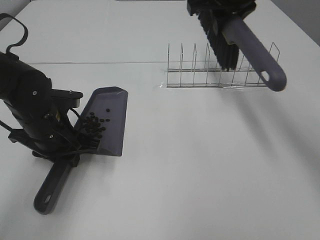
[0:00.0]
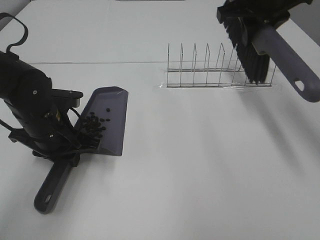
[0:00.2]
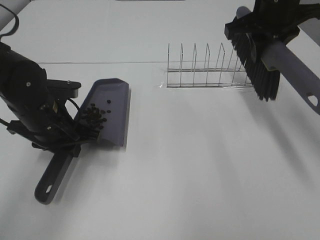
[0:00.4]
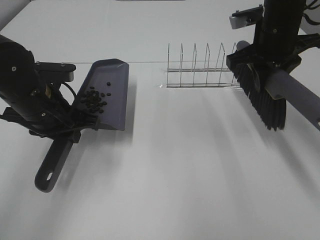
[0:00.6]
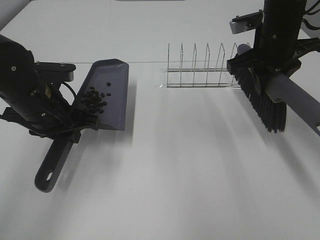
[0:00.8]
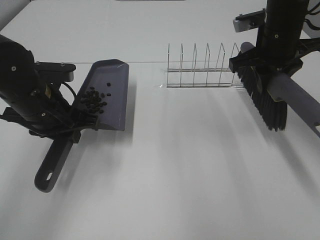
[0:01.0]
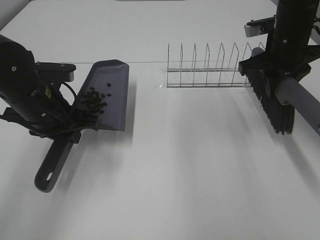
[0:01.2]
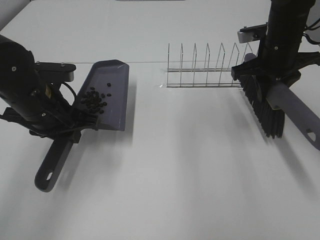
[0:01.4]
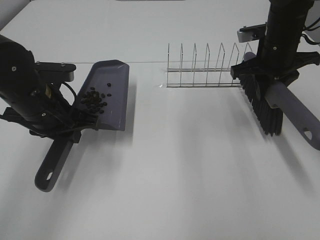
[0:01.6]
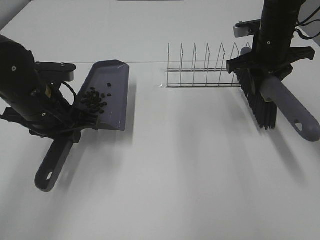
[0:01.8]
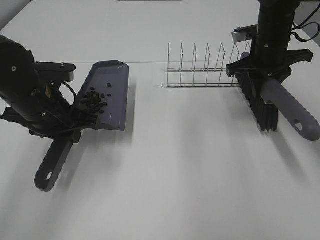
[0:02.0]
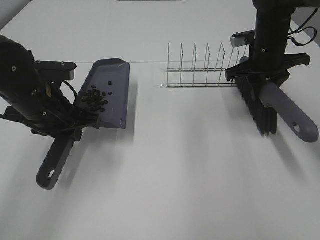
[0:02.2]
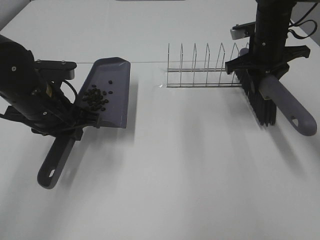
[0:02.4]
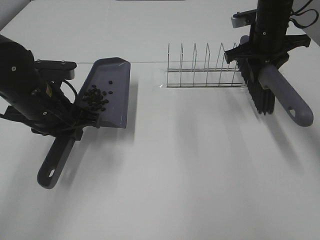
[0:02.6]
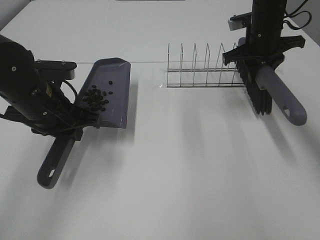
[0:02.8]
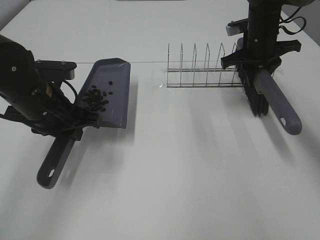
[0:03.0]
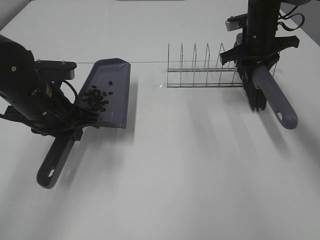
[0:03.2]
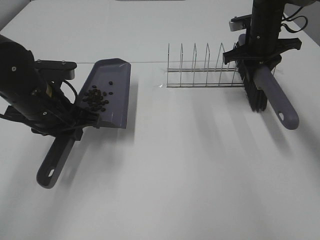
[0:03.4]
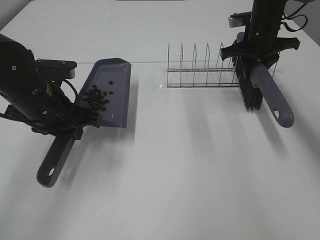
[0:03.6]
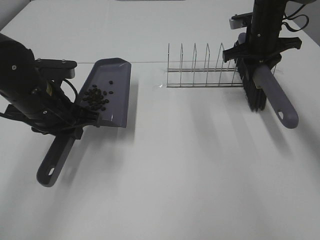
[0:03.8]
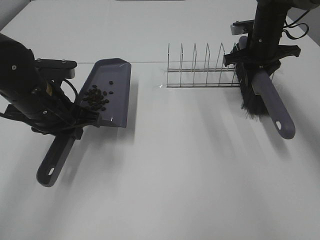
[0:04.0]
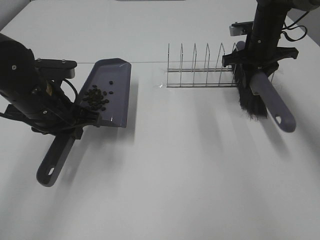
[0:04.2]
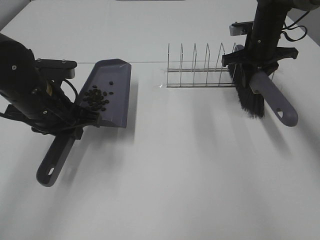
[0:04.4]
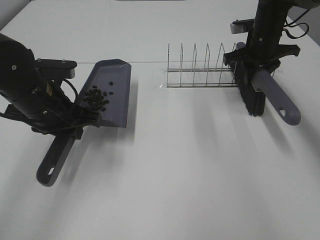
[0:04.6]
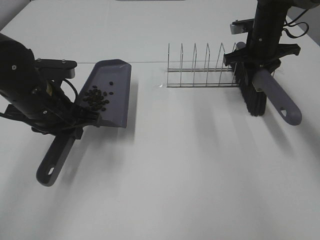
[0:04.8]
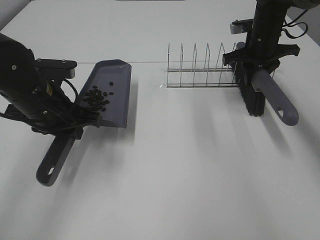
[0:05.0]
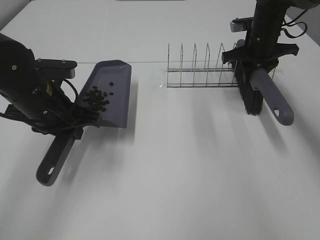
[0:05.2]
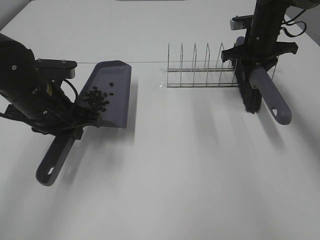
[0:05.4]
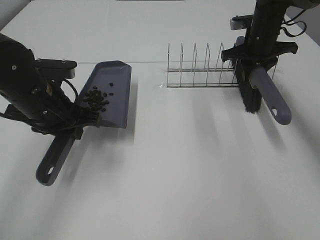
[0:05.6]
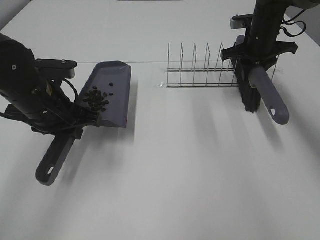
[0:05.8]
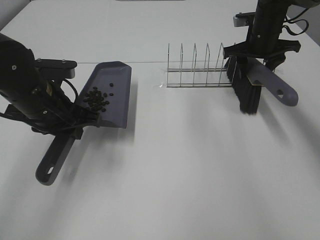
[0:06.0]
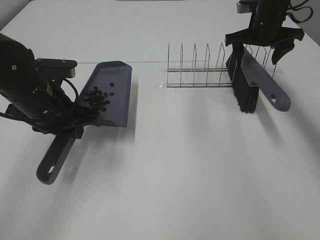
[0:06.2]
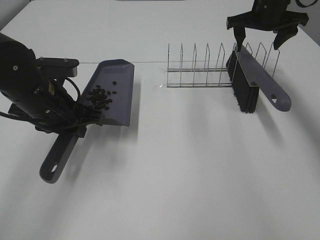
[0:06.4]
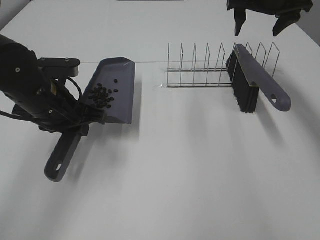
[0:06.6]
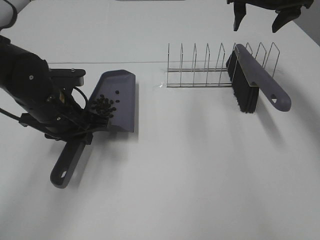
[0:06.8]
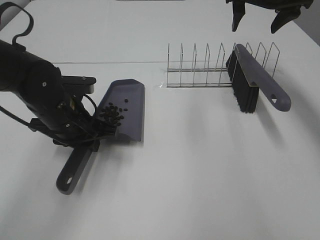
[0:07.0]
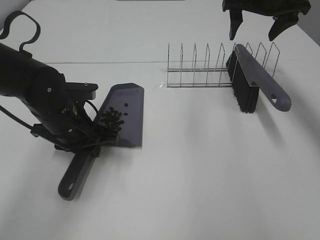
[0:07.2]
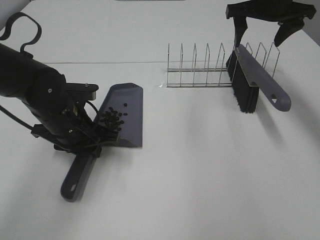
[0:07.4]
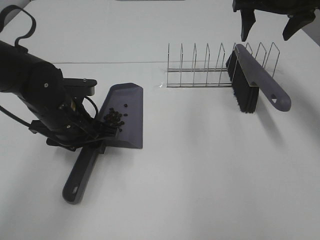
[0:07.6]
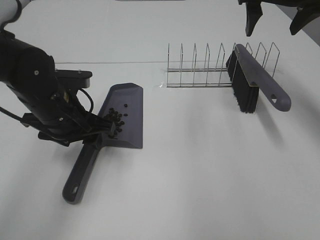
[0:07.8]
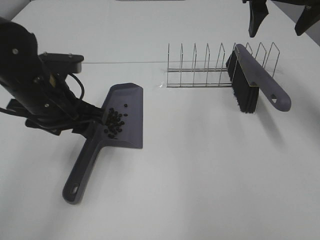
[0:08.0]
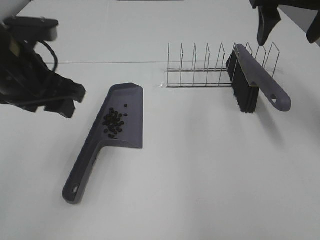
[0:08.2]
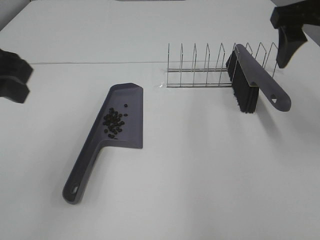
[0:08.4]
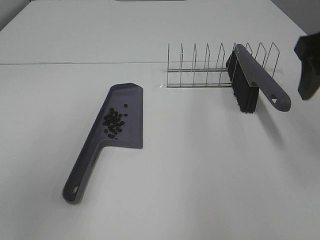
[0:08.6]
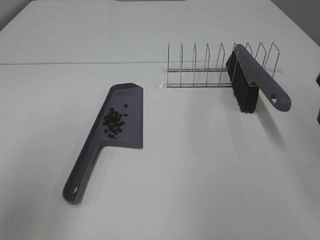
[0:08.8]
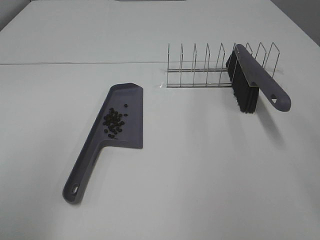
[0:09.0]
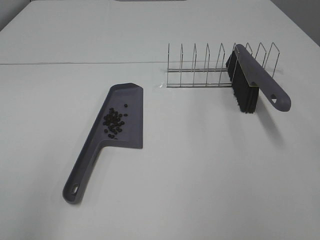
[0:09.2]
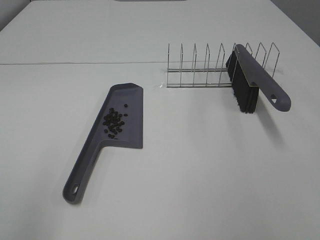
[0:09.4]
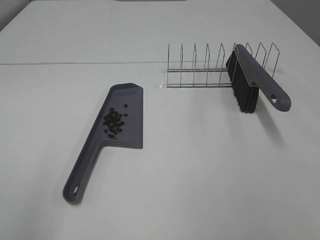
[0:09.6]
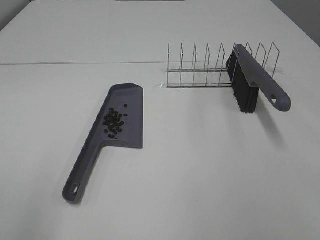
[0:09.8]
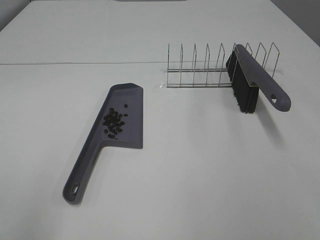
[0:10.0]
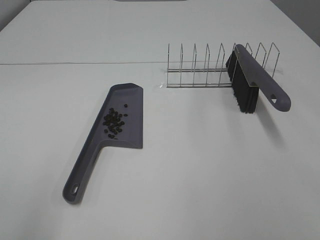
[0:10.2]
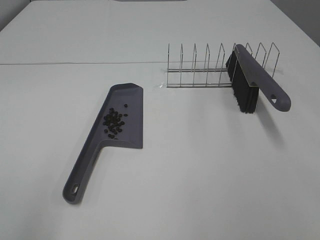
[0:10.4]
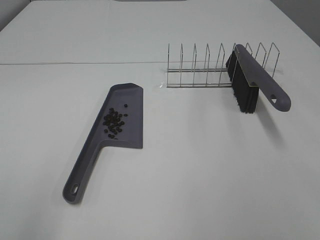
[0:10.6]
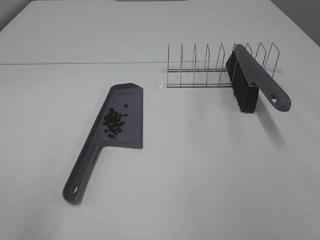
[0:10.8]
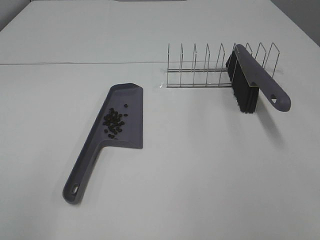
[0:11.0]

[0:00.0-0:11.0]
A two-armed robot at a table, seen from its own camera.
Task of the whole recording: Sweep Coffee Bean.
Step, 0.0 to 6.2 s: Right hand:place the broom on the rack.
Step, 6.4 to 7.8 s: Left hand:place the dustpan on the table.
0.0 to 1.6 s: The right gripper heads downward and to the right, covering about 15 cm; the left gripper travels upward by some 5 cm.
1.6 to 3.2 s: The right gripper goes some 10 cm forward.
3.2 to 4.8 s: The grippers move only a little.
4.8 to 6.2 s: The right gripper opens its fingers.
6.2 to 7.8 s: The left gripper opens. Meanwhile the right gripper moves upward and backward, about 15 cm.
7.8 to 9.4 s: The left gripper moves backward, upward and to the left, roughly 30 cm, while the right gripper heads backward, covering roughly 35 cm.

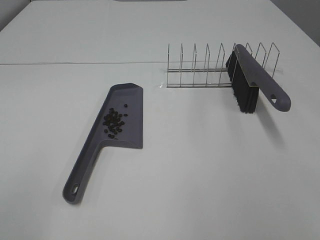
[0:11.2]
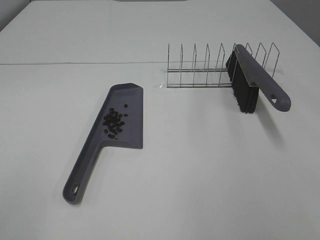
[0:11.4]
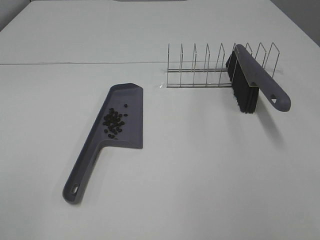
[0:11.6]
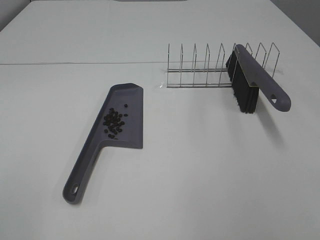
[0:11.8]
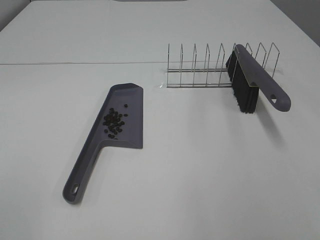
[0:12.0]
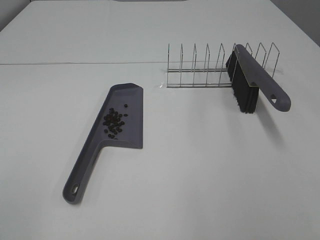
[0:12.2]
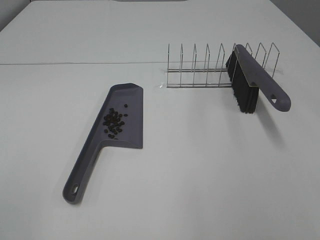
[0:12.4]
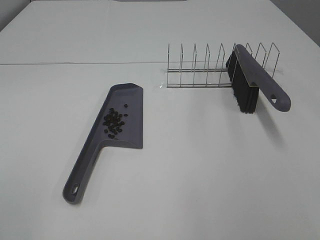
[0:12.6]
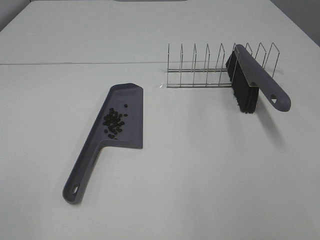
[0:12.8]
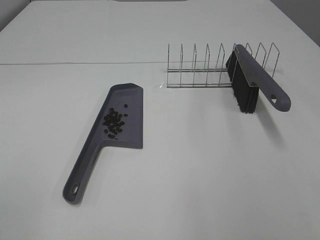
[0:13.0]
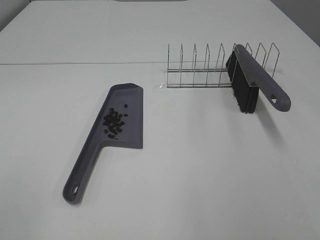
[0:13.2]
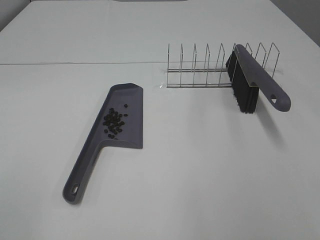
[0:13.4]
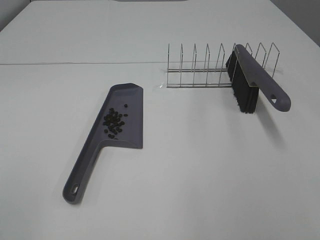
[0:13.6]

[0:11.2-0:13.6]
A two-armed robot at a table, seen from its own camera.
Task of the whole recording: Sweep Coffee Bean.
12.4 to 13.6 s: Both grippers stay put.

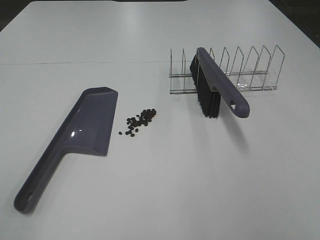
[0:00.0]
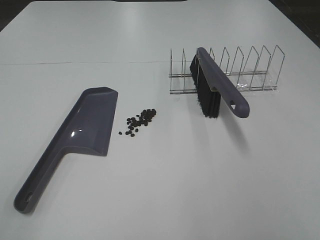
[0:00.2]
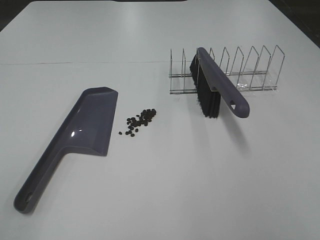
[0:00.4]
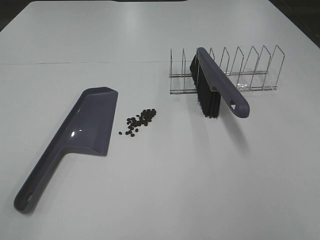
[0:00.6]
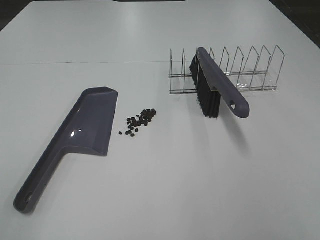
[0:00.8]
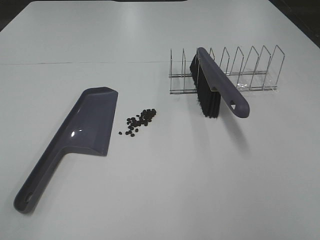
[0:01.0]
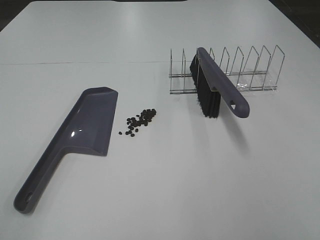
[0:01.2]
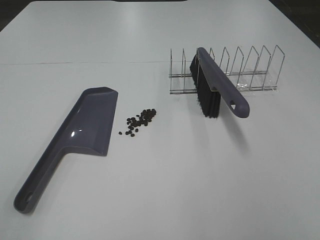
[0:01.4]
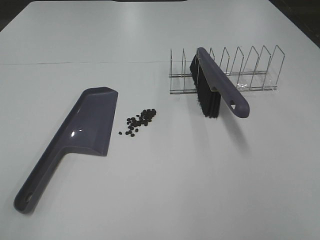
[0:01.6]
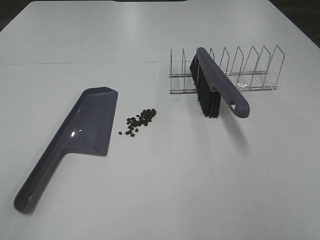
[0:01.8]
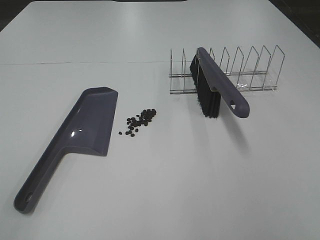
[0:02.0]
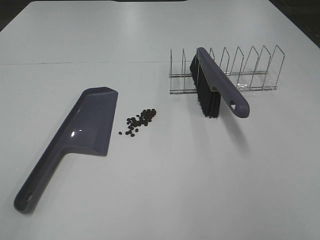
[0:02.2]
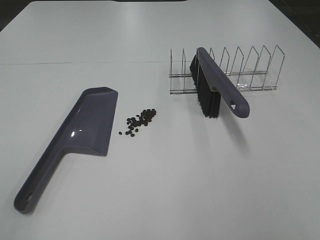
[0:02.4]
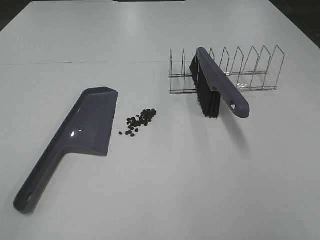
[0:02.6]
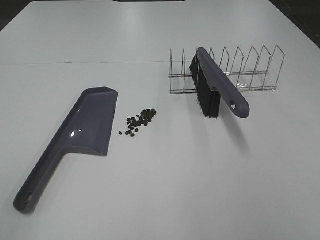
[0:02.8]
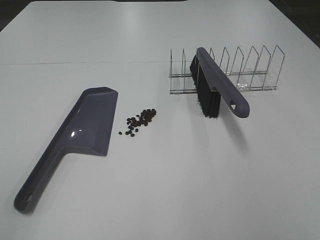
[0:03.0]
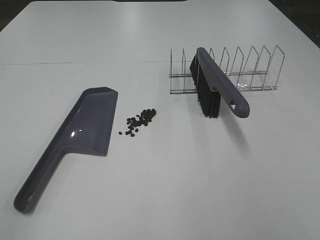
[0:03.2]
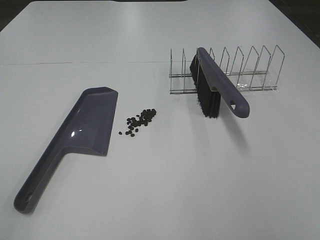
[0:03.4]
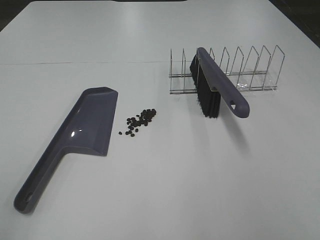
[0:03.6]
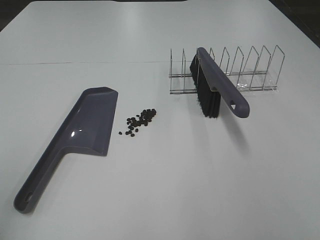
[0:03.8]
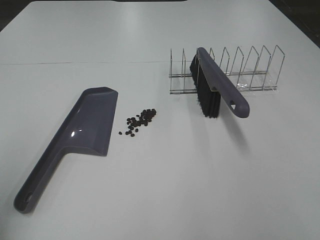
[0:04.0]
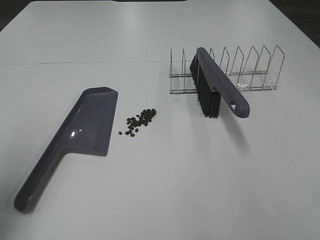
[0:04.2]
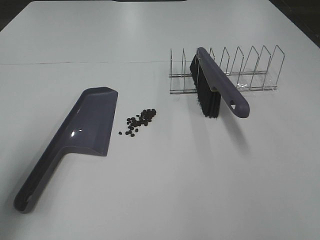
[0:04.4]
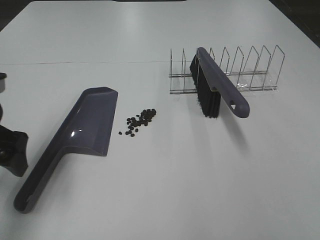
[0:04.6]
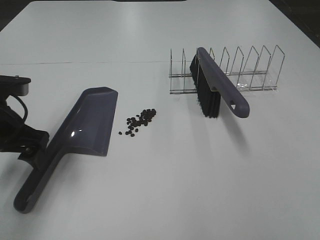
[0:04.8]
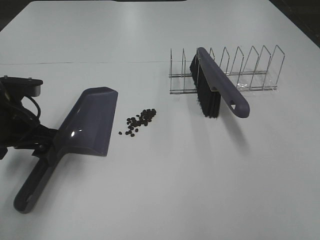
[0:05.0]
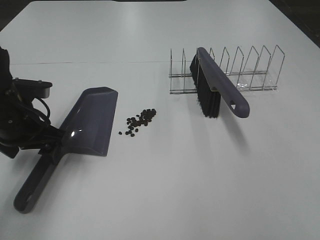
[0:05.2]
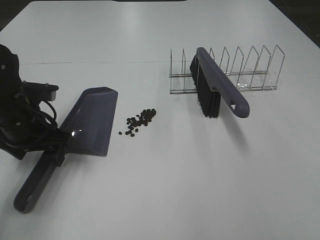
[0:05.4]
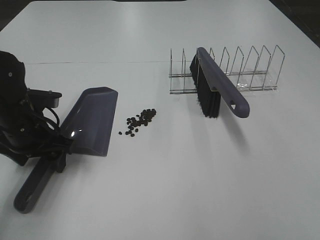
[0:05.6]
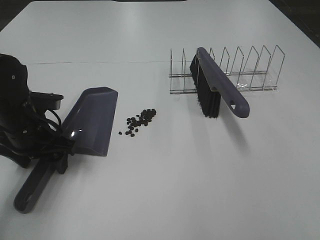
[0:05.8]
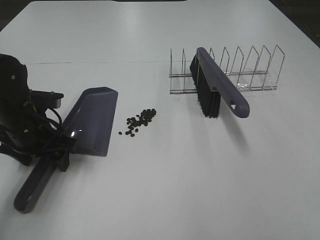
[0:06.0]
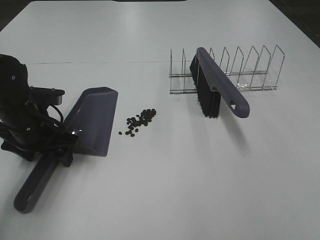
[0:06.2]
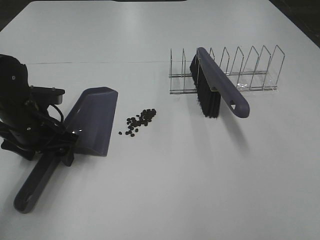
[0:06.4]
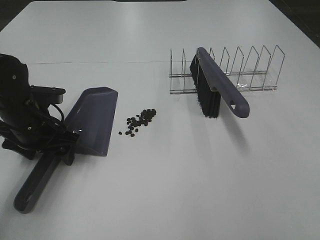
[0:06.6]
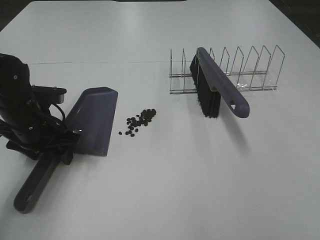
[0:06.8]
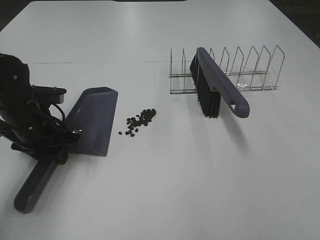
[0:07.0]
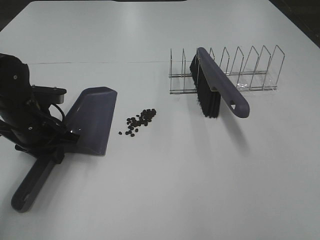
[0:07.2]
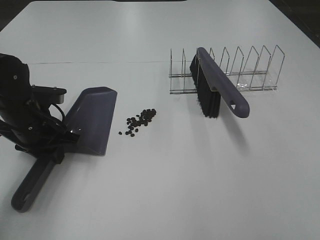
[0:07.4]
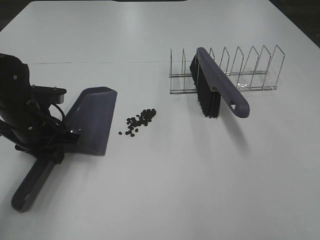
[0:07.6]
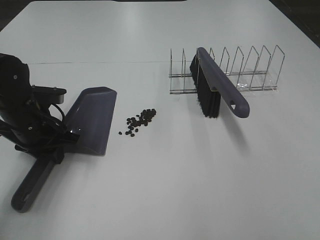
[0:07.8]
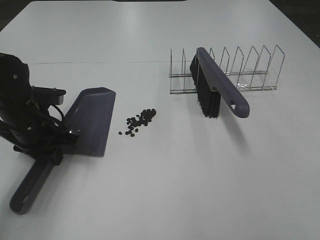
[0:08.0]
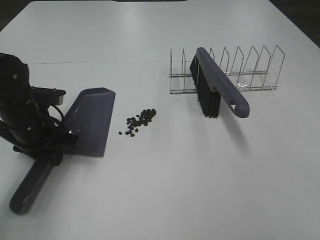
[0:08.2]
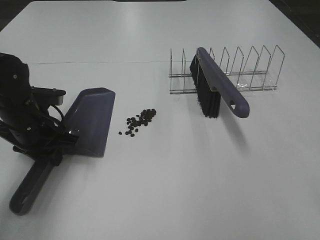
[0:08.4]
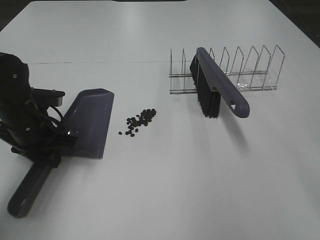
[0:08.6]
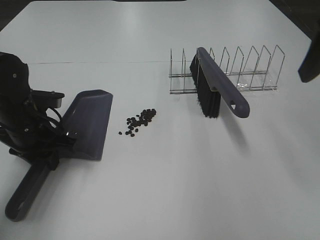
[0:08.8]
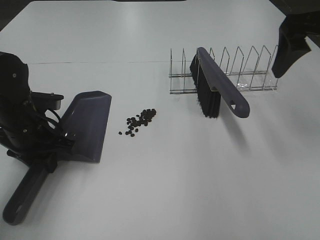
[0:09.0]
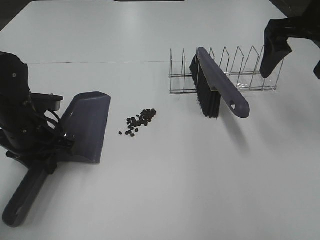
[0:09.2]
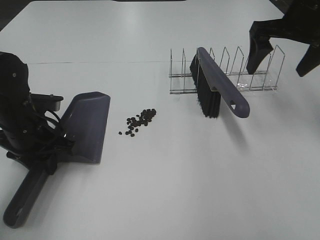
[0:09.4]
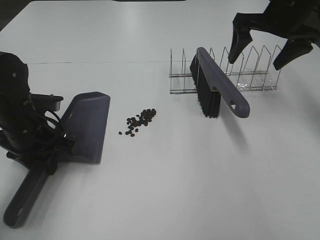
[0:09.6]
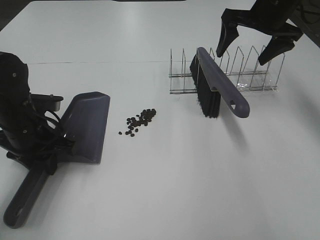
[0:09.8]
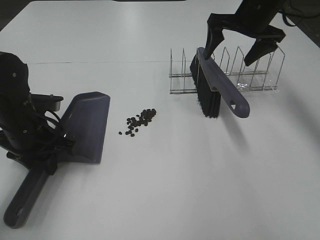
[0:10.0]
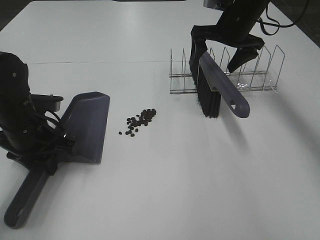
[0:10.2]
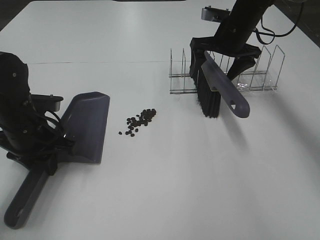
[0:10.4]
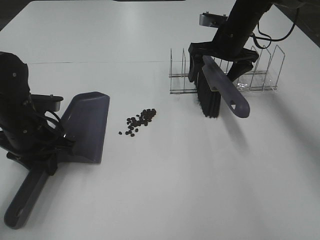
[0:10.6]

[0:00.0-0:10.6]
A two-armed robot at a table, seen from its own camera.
Task of the whole recording: Sweep Coffee Bean.
Step, 0.0 to 7.4 s: Left hand: grab the dustpan.
0.0 to 3.0 s: Neither gripper changes place.
3.0 to 4.6 s: The left gripper heads forward, covering approximately 25 cm.
4.6 to 6.0 s: The left gripper goes about 10 cm downward and forward.
6.0 to 7.6 s: The left gripper closes.
7.6 to 9.0 s: The right gripper shifts approximately 30 cm forward, and opens up.
9.0 to 10.6 s: The right gripper shifts about 25 cm forward, downward and to the left.
